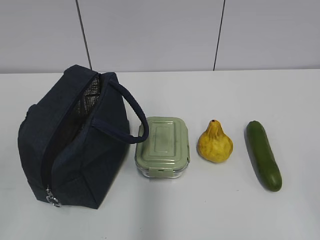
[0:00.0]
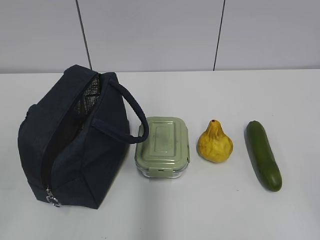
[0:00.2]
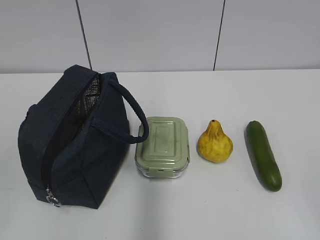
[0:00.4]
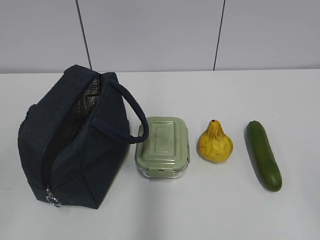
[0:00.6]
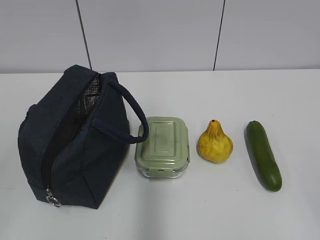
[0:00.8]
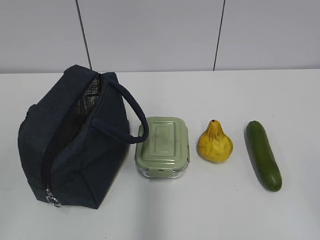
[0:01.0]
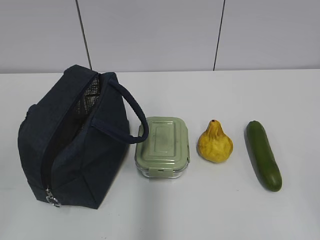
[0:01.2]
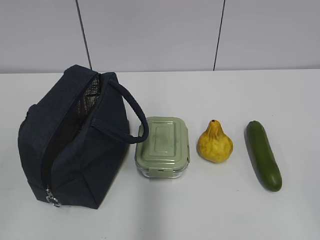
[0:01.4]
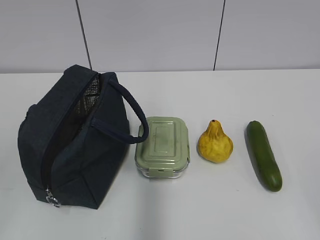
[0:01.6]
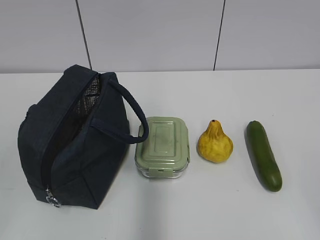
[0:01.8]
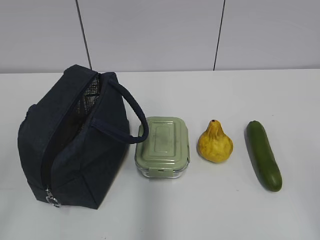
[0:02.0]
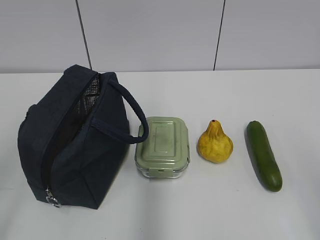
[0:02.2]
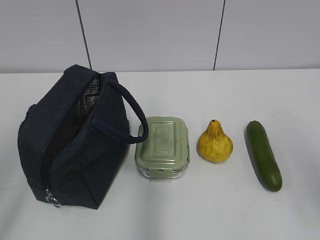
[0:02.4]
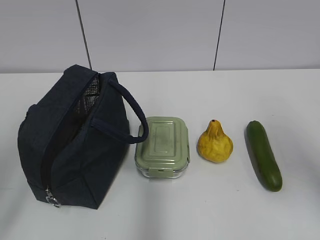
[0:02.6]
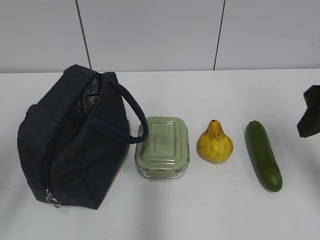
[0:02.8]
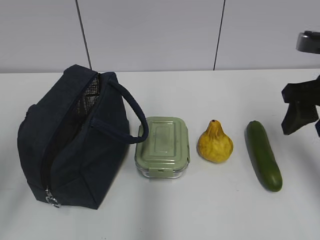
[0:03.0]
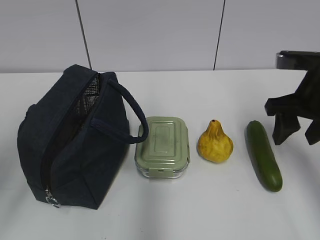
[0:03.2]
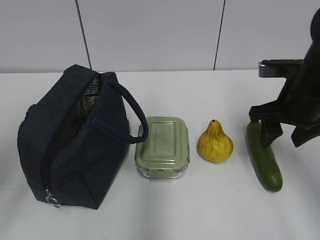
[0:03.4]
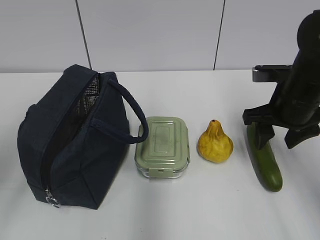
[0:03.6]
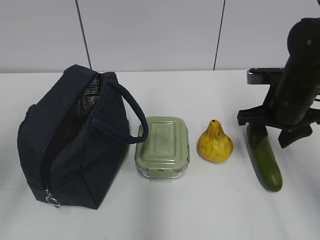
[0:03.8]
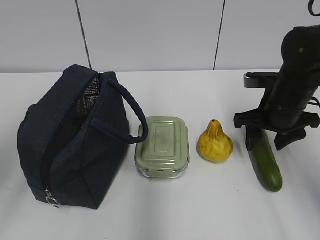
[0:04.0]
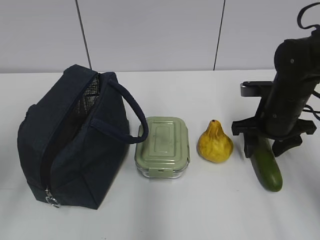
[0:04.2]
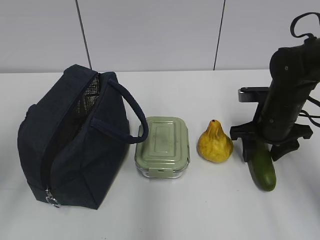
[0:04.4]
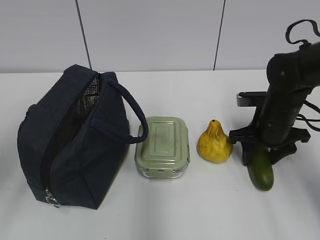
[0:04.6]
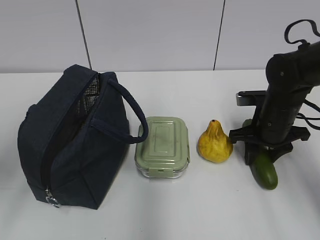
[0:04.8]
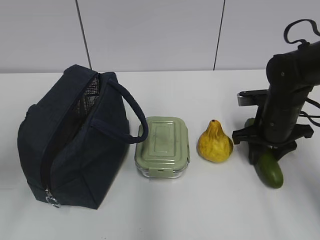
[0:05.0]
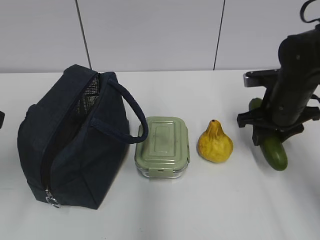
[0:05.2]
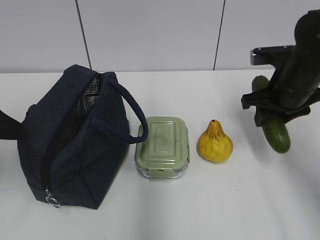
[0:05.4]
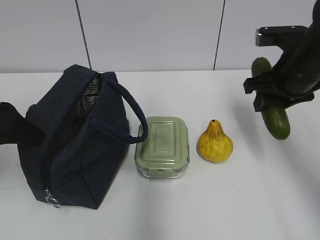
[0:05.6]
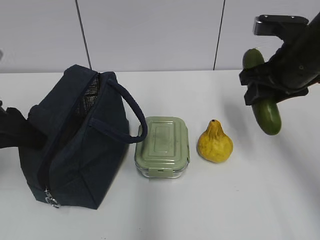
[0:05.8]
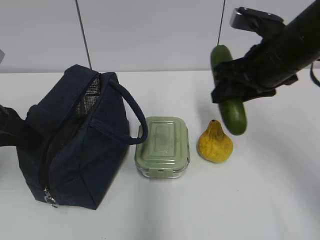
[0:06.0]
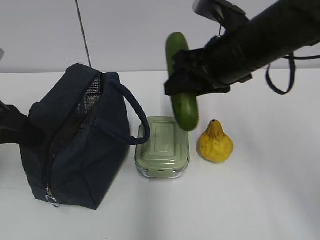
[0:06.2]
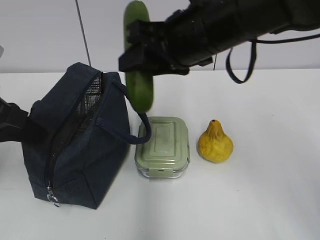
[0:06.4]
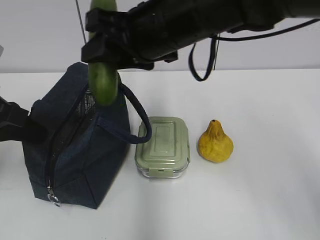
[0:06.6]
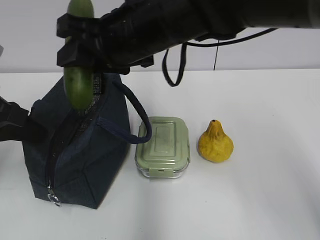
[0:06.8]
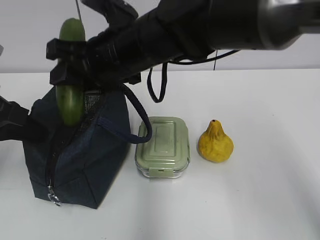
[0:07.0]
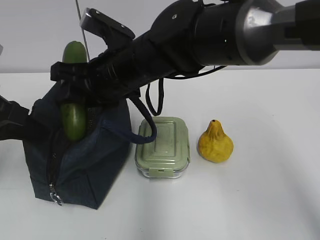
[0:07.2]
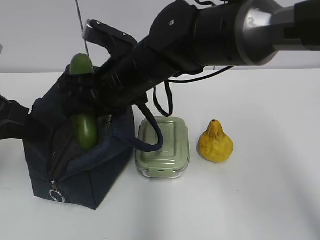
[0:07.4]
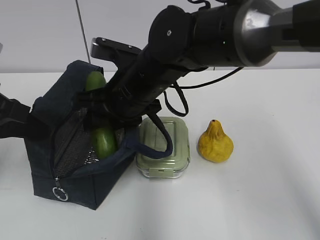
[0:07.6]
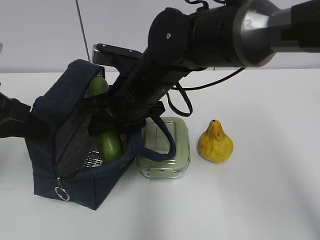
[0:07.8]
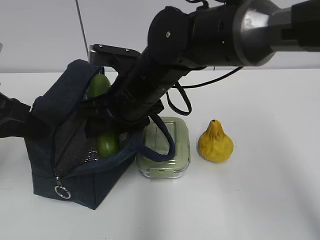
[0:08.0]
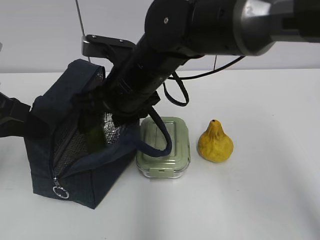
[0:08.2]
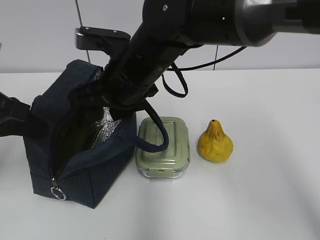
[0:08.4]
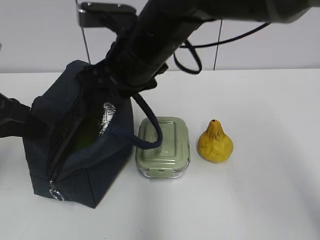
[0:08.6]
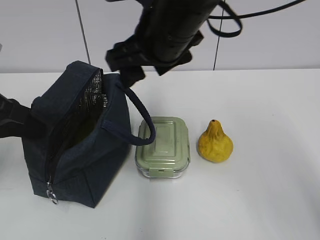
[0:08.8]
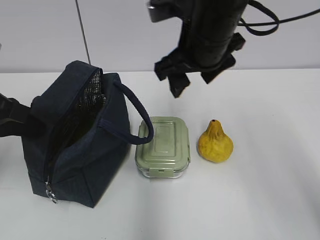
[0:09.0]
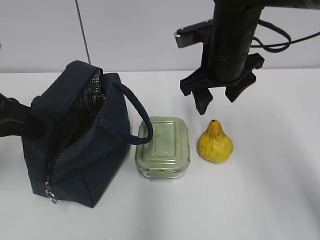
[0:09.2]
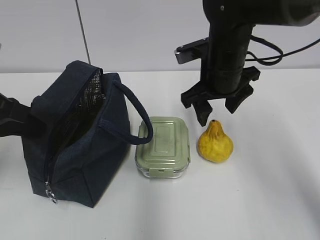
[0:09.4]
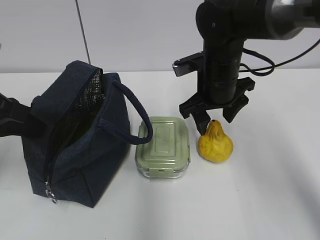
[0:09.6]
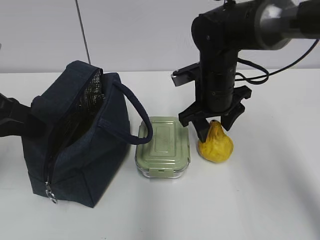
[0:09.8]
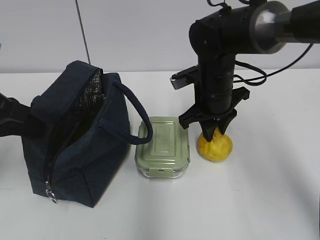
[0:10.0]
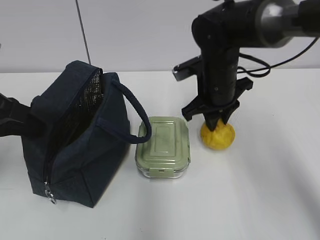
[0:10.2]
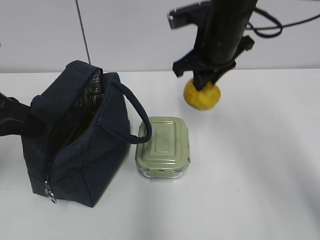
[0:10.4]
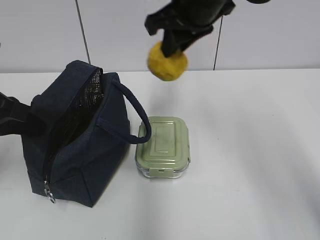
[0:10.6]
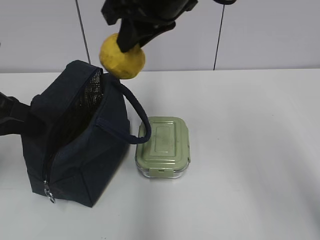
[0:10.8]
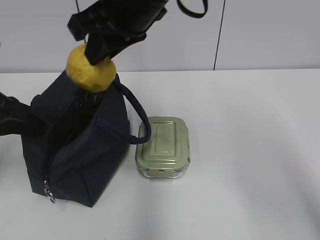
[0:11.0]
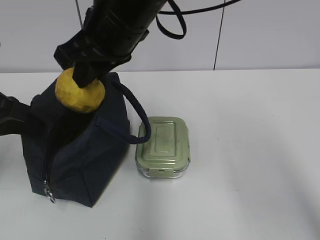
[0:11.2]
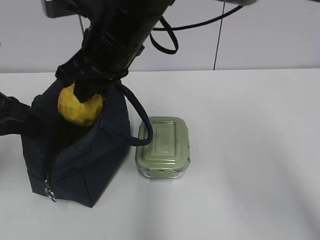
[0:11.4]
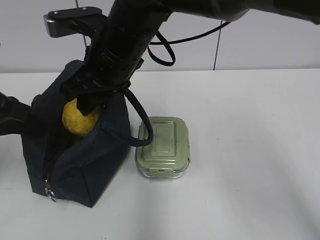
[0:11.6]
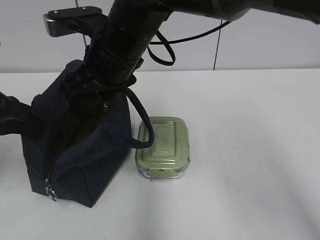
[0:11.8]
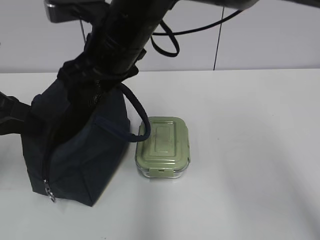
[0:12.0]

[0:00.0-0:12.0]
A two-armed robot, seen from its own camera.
0:01.6 to 0:03.0: The right gripper shifts roughly 30 cm forward. The left gripper heads forward, covering some 15 cm.
0:03.0 to 0:04.4: The right gripper is displaced downward and forward by approximately 15 cm.
0:04.4 to 0:06.0: The left gripper goes approximately 10 cm forward and downward, and closes up, while the right gripper moves upward, about 15 cm.
0:06.0 to 0:07.6: The right gripper is displaced to the left by some 20 cm.
0:07.6 to 0:09.0: The right gripper is displaced to the right and upward by some 10 cm, and opens.
0:09.0 to 0:10.4: The right gripper moves roughly 10 cm downward and comes back, and closes up.
0:10.4 to 0:12.0: The right gripper moves to the left, approximately 15 cm, and opens up.

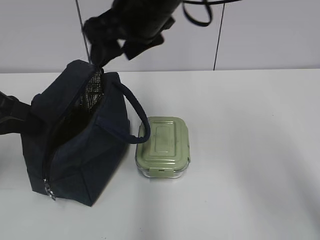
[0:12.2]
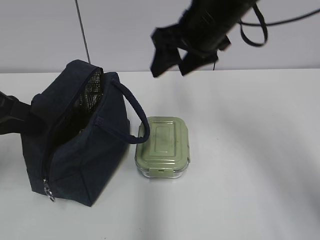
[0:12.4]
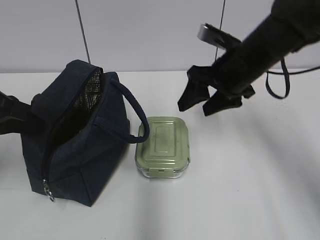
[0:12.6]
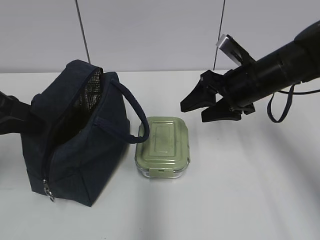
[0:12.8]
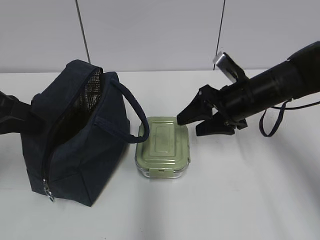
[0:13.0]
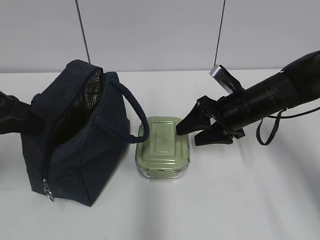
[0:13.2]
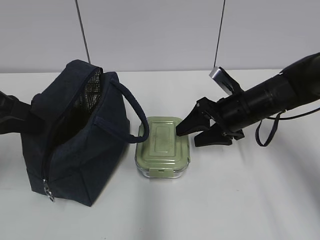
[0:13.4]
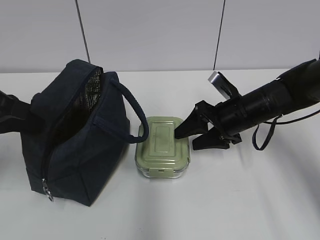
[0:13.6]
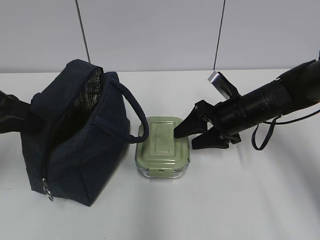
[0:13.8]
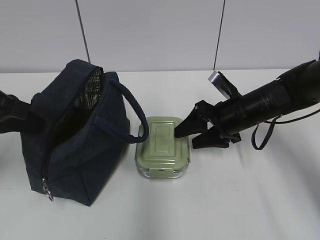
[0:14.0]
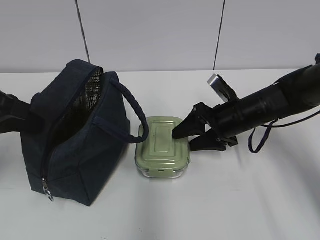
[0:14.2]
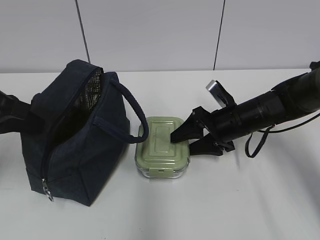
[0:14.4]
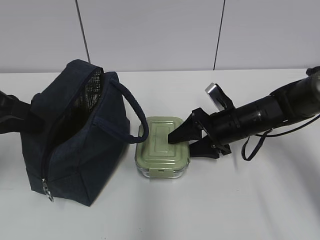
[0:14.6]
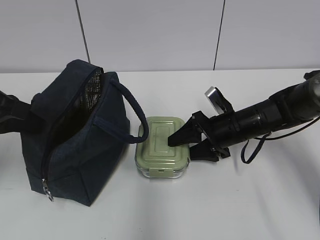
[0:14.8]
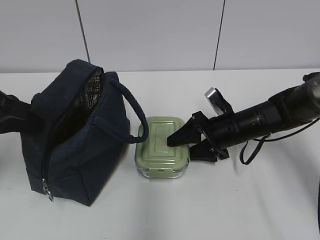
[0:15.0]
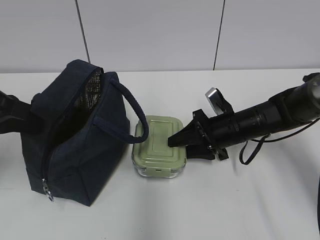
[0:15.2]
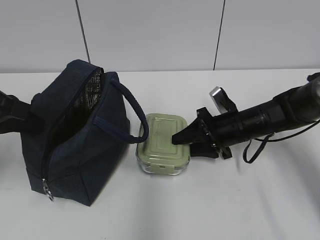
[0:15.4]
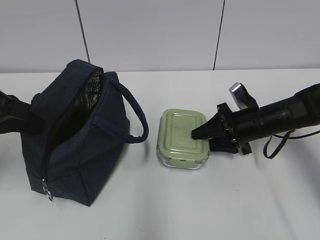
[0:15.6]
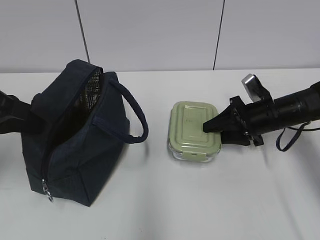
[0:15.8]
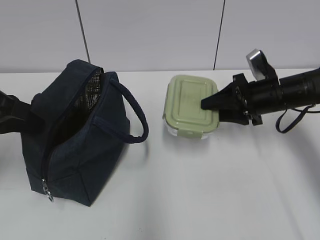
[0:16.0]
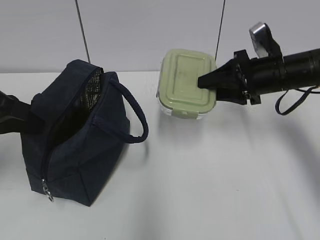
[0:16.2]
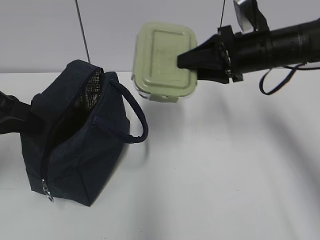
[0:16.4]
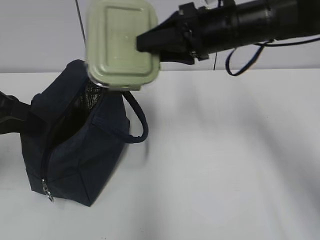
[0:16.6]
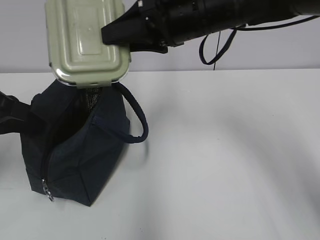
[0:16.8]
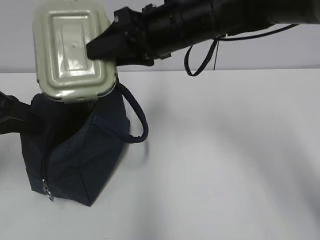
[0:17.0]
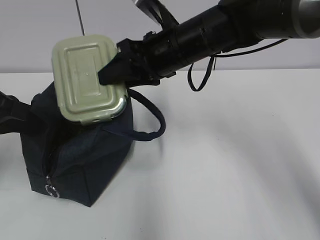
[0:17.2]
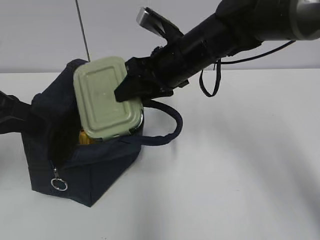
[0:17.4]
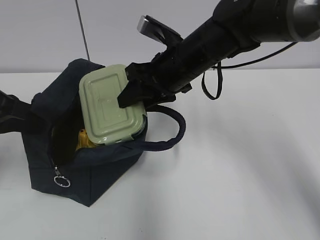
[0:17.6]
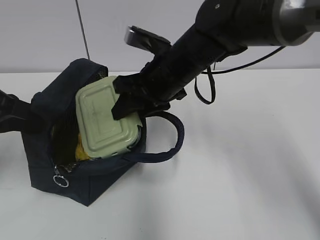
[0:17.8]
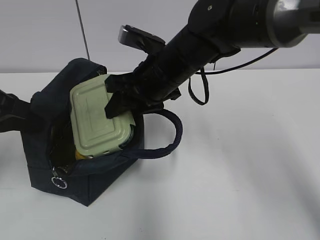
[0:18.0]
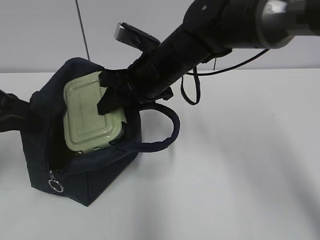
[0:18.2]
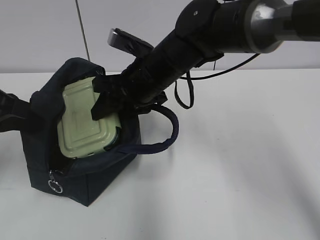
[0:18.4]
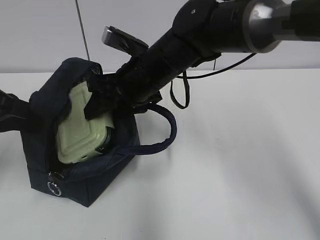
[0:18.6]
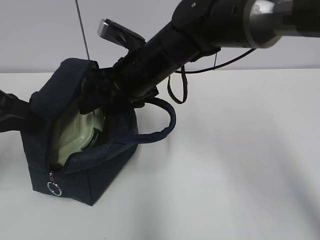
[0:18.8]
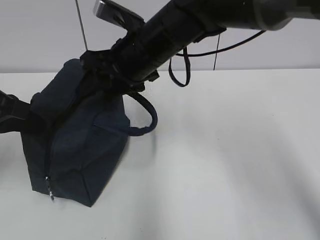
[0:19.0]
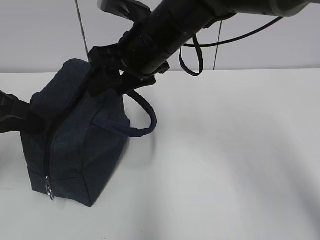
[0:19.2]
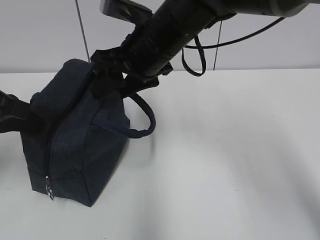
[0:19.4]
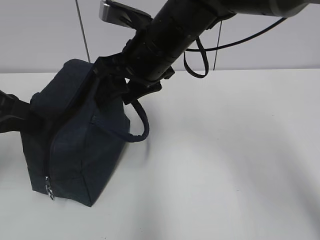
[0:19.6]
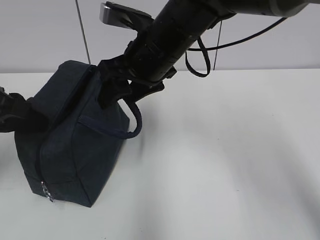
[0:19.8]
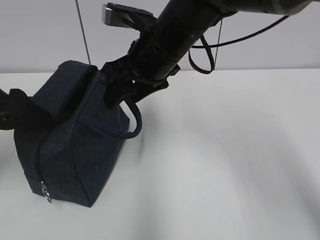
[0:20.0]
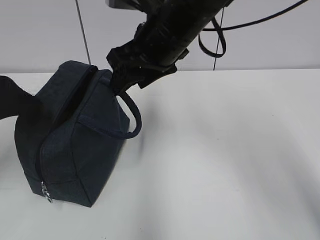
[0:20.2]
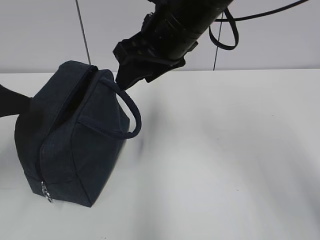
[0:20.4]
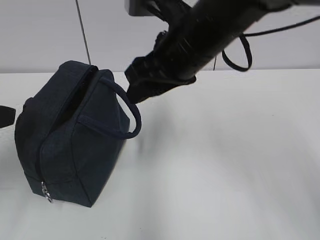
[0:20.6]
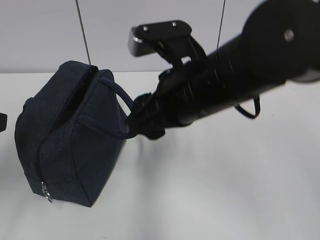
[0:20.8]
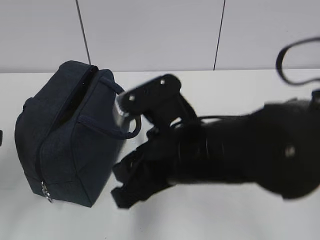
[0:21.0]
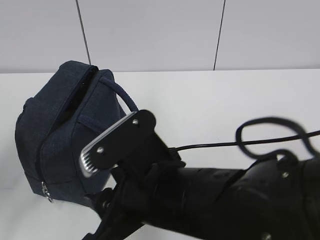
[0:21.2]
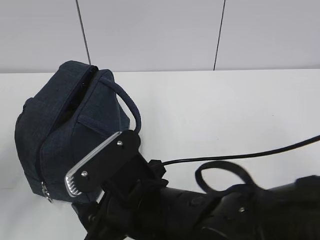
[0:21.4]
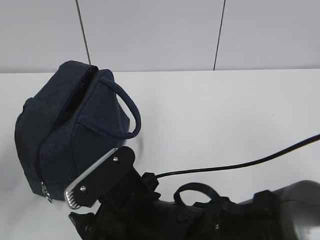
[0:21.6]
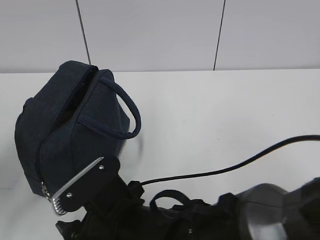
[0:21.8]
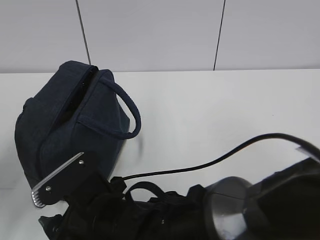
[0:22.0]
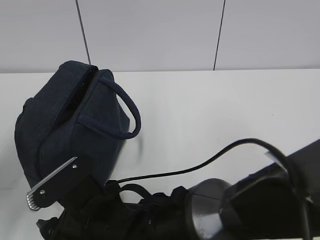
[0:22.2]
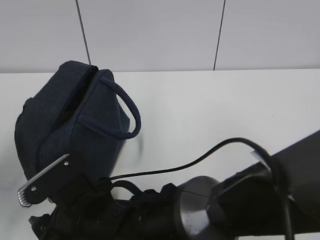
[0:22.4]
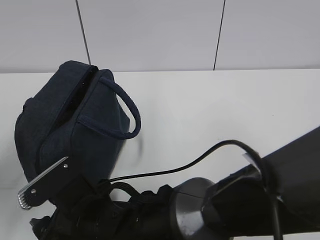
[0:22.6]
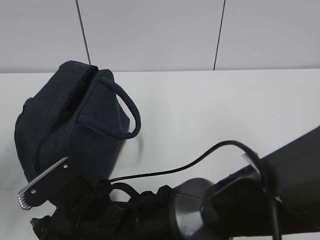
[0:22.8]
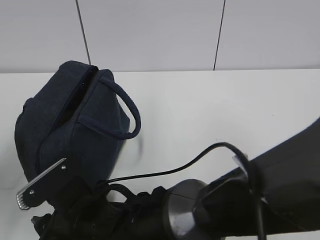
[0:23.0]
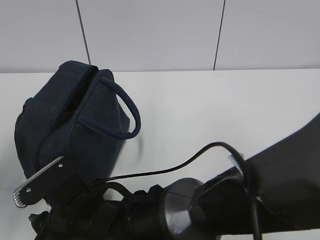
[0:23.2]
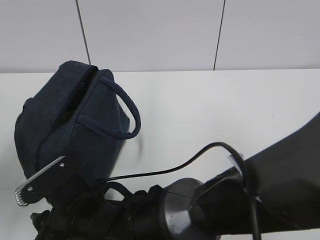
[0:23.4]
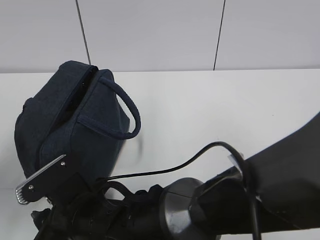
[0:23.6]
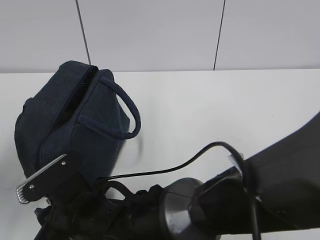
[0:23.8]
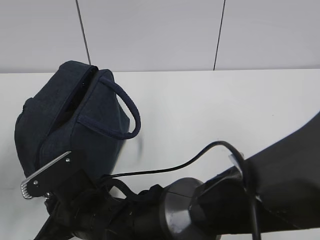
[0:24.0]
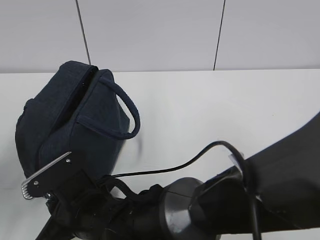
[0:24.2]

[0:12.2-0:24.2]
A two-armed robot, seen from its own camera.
0:12.2 to 0:13.8: The right gripper heads downward and to the right, covering roughly 25 cm.
0:13.8 to 0:15.2: The right gripper closes up.
0:15.2 to 0:16.6: The right gripper travels upward by roughly 20 cm.
0:16.6 to 0:18.2: The right gripper travels to the left and downward by roughly 10 cm.
0:18.2 to 0:19.8: The left gripper opens.
0:19.8 to 0:21.2: The left gripper travels backward by approximately 10 cm; the right gripper shifts about 20 cm backward and downward.
0:21.2 to 0:22.6: The right gripper shifts approximately 15 cm to the left and downward.
0:22.6 to 0:24.2: The right gripper closes up.
